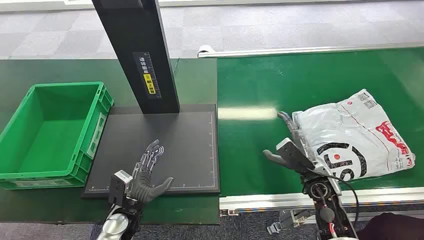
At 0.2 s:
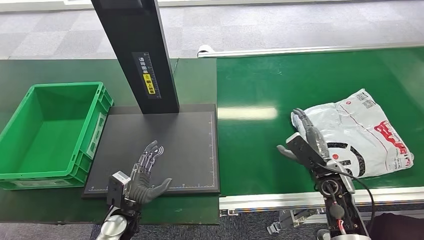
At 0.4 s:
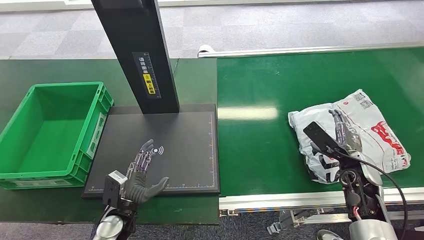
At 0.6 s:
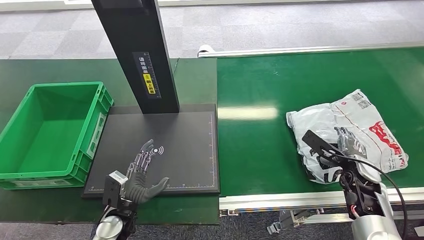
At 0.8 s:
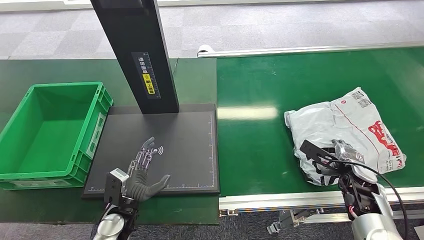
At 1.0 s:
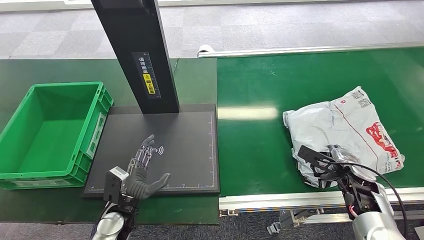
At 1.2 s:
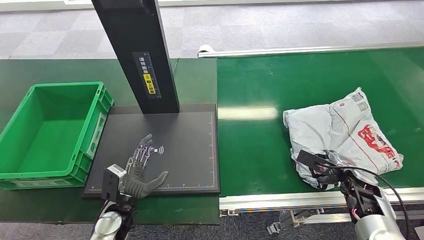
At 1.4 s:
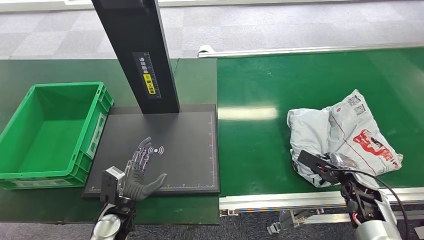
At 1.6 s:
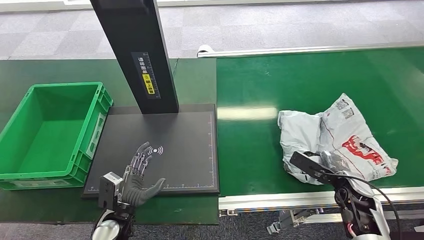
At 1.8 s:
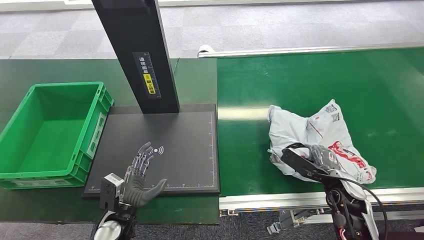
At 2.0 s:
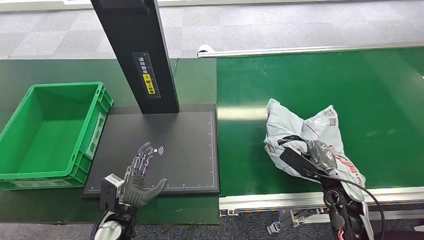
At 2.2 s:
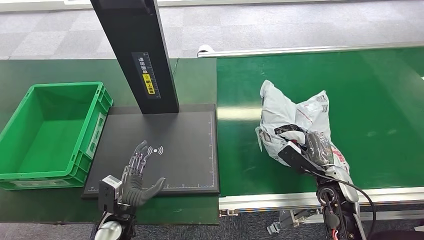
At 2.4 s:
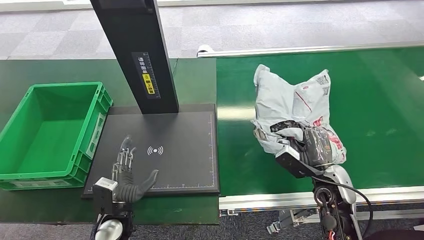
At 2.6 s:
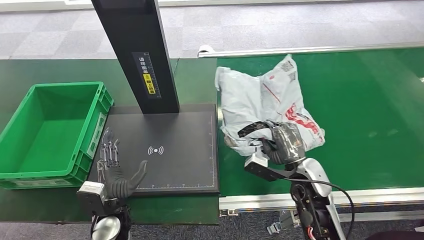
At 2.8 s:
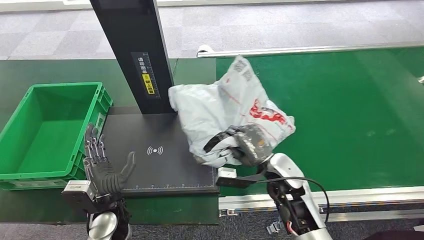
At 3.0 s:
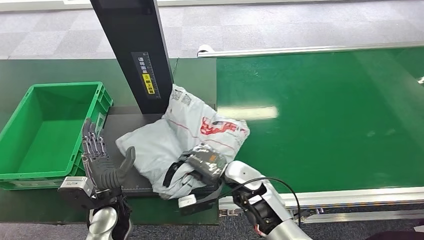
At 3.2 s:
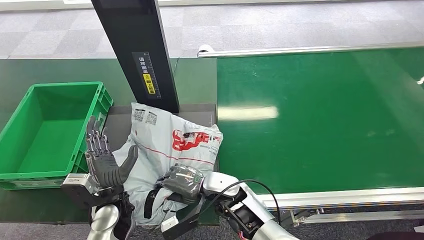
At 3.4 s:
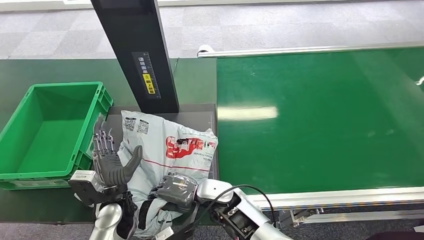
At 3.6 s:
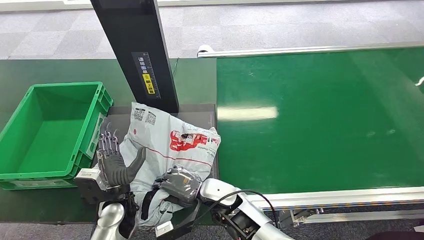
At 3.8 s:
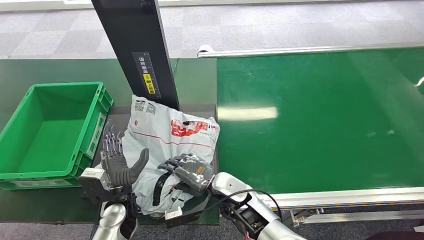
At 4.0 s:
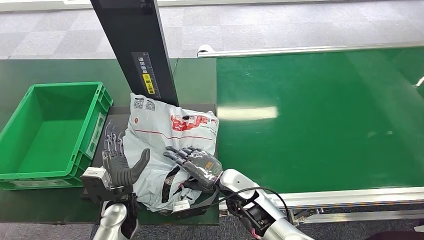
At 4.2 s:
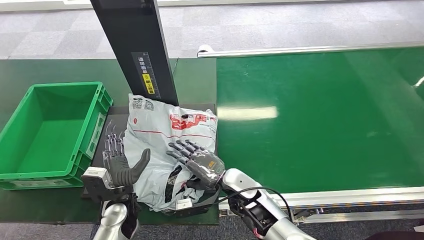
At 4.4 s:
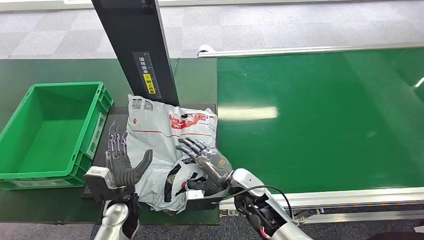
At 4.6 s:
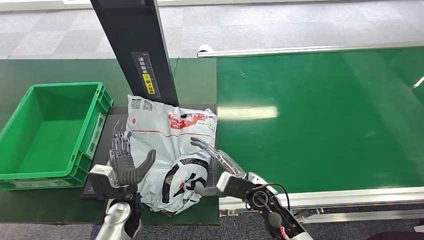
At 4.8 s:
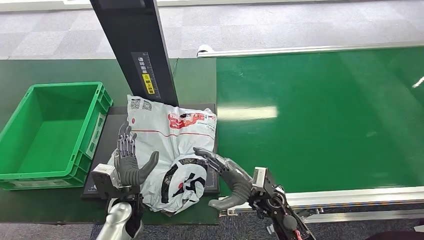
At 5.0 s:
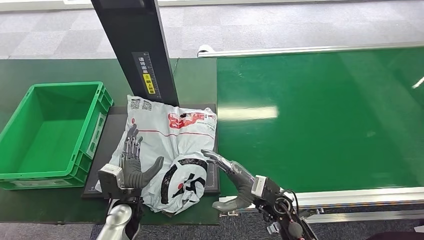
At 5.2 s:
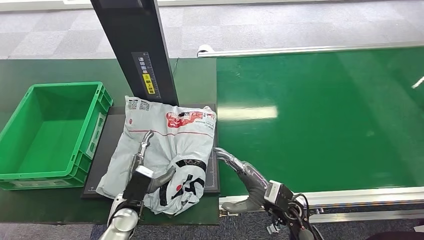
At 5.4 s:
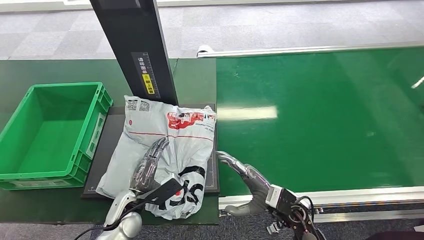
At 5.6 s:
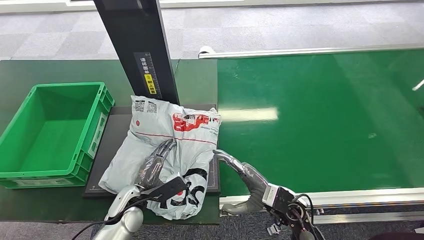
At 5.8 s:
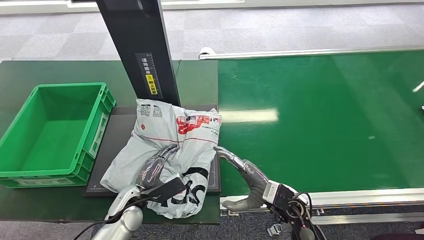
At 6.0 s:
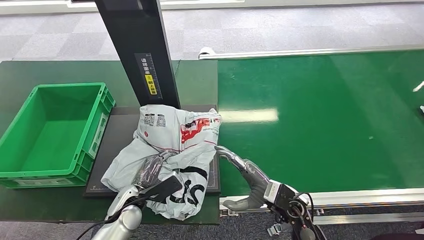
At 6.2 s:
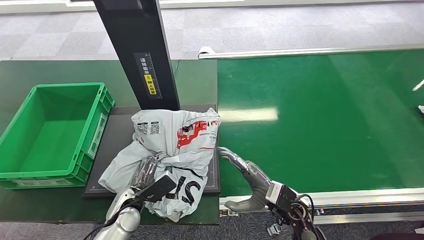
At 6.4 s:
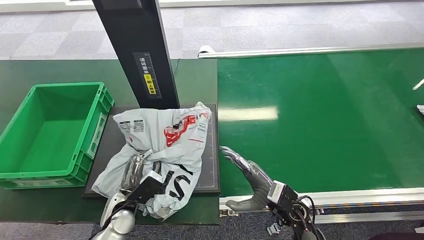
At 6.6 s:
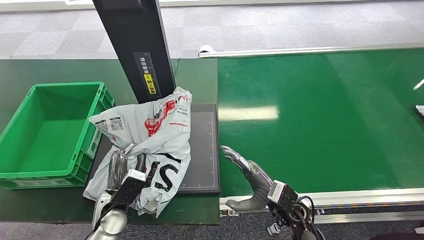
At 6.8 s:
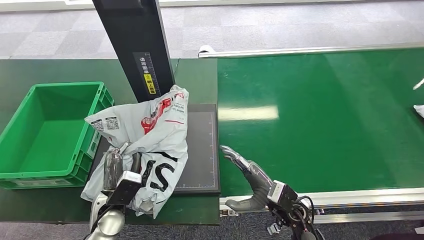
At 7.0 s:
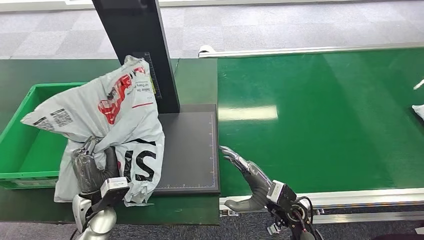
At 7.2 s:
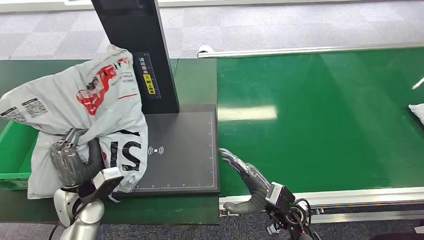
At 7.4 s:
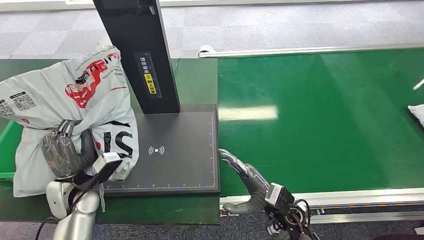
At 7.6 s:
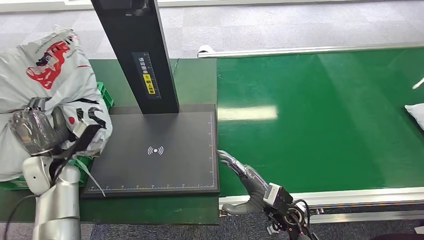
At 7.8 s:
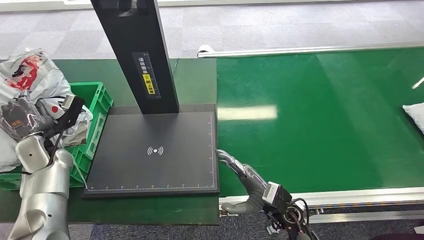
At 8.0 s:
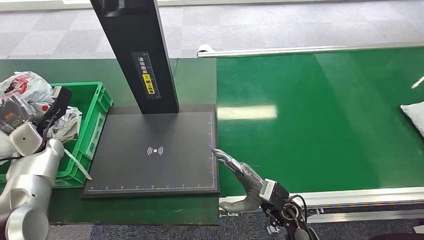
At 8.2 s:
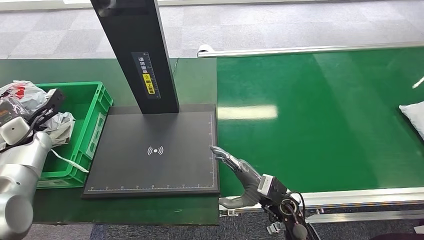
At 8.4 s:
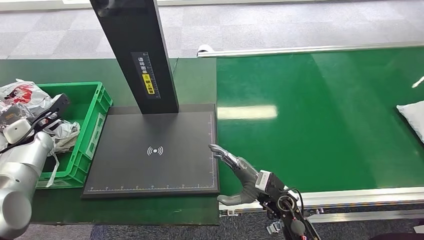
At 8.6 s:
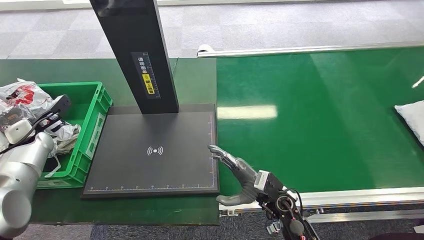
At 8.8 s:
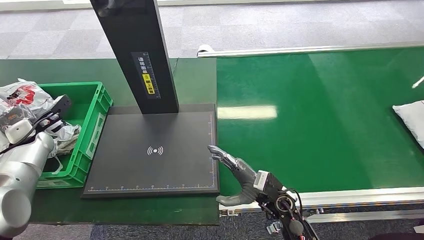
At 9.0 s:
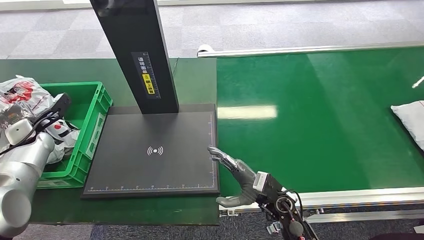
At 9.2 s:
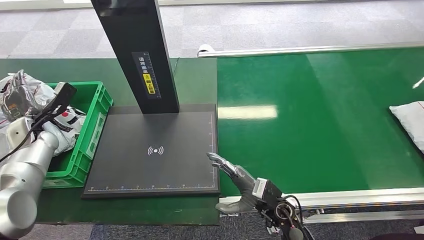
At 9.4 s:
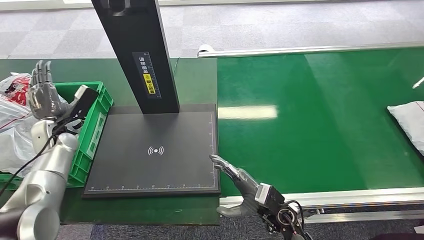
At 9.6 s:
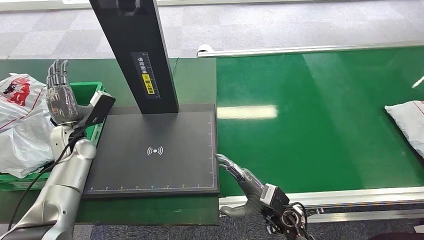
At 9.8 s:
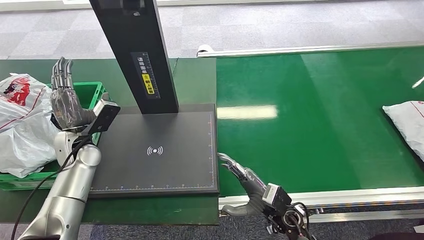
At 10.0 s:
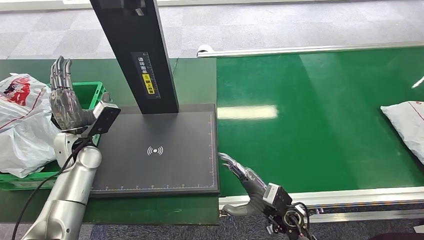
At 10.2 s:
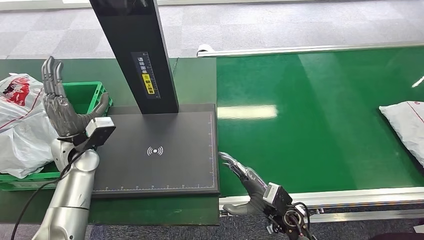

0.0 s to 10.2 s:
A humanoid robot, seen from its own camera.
Step, 0.0 to 2.6 s: Pick up the package from the conveyor belt.
Step, 2.8 to 5.0 s: Place the package onto the inbound machine.
Step, 5.4 to 7.4 s: Pick up the package from the inbound machine.
Step, 7.8 to 10.2 s: Place the package into the parcel locker.
8.8 to 10.2 s: The left hand shifts approximately 15 cm to the right.

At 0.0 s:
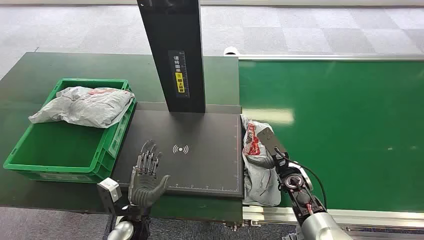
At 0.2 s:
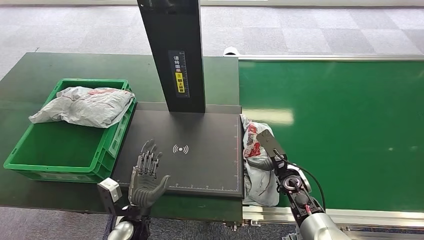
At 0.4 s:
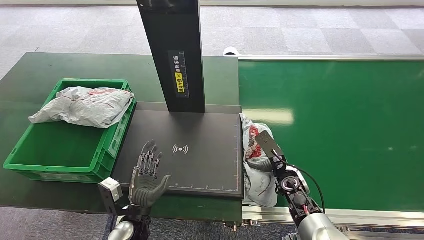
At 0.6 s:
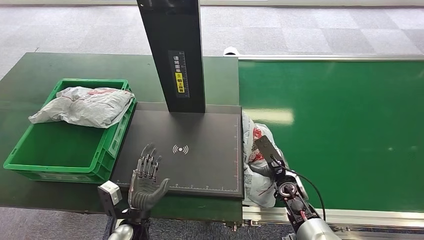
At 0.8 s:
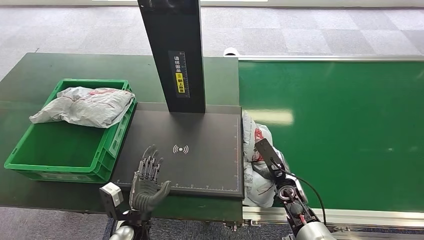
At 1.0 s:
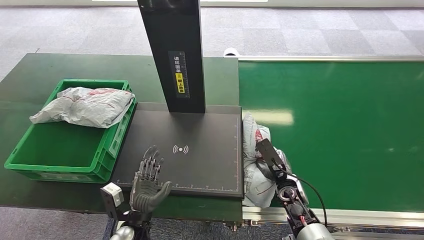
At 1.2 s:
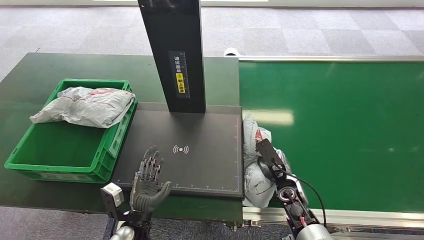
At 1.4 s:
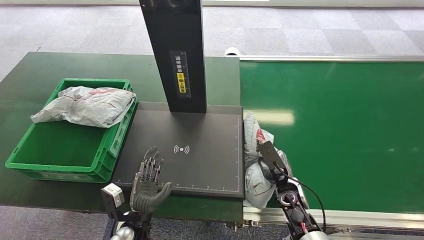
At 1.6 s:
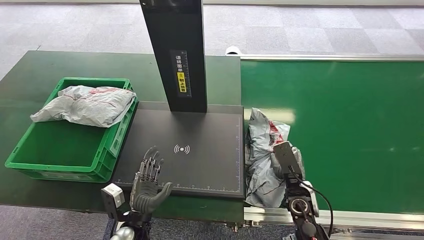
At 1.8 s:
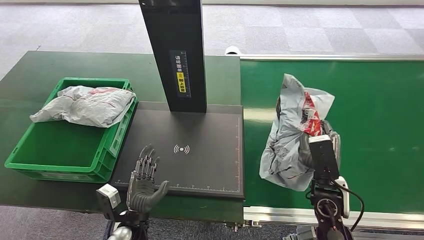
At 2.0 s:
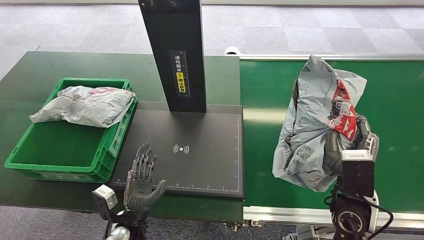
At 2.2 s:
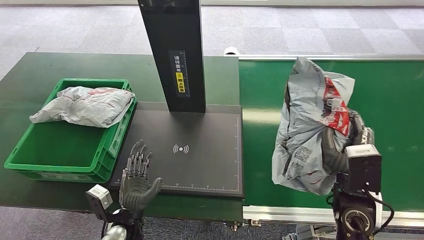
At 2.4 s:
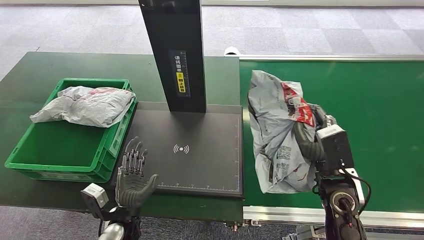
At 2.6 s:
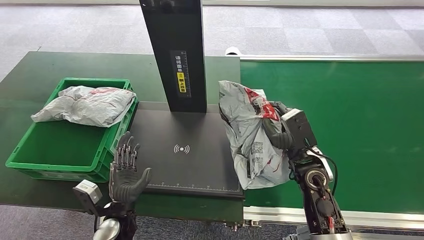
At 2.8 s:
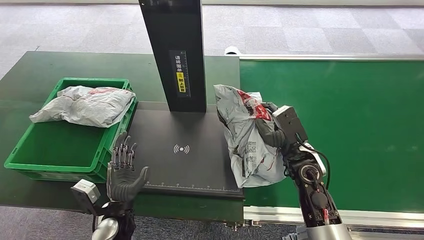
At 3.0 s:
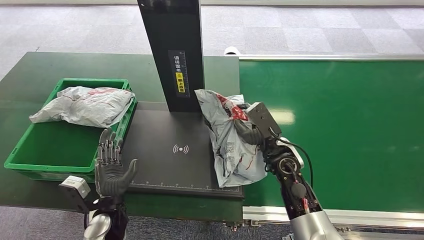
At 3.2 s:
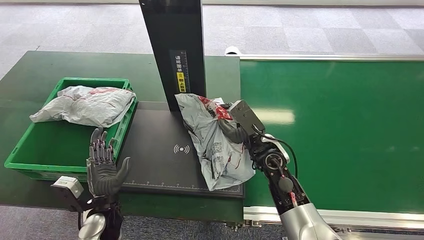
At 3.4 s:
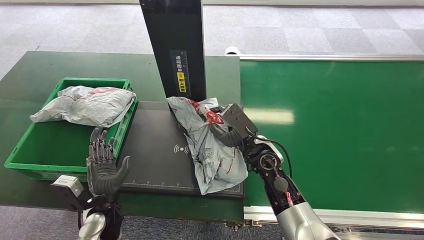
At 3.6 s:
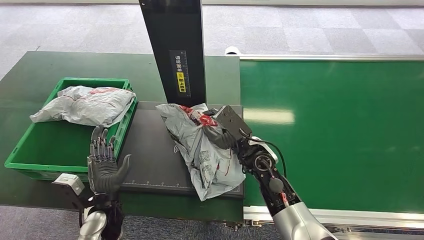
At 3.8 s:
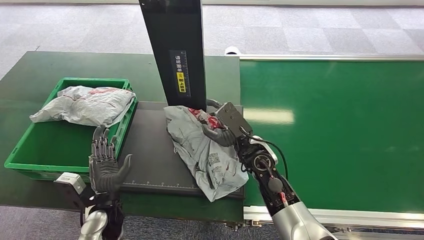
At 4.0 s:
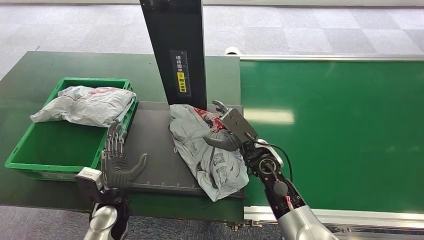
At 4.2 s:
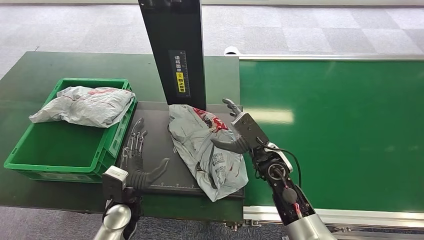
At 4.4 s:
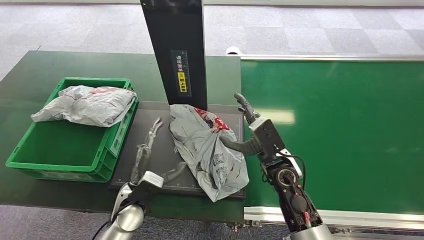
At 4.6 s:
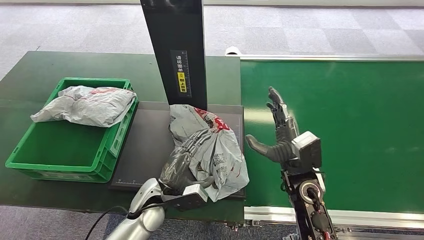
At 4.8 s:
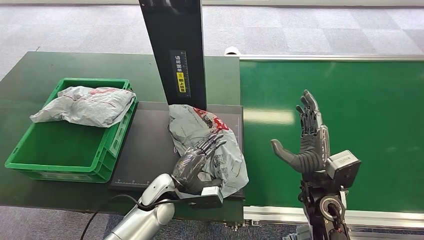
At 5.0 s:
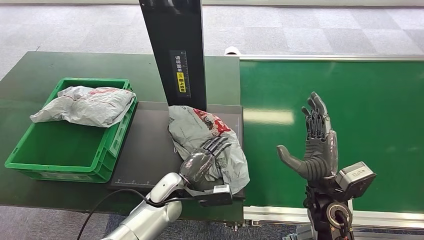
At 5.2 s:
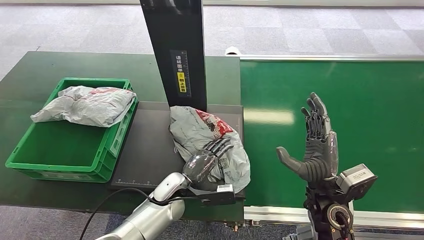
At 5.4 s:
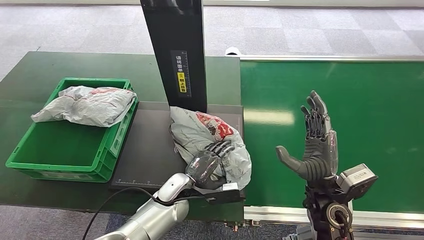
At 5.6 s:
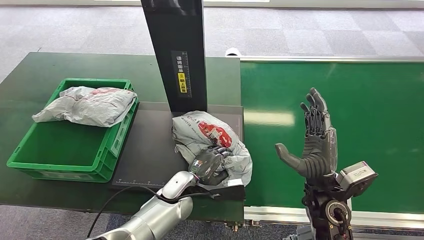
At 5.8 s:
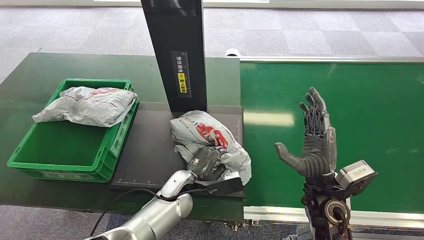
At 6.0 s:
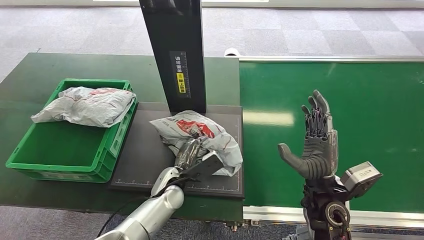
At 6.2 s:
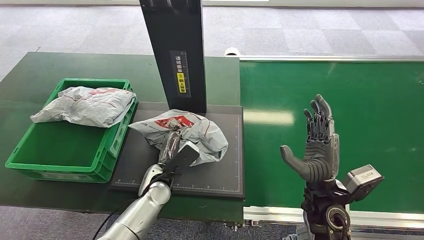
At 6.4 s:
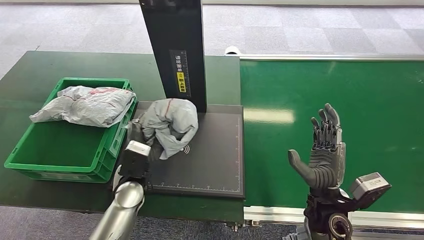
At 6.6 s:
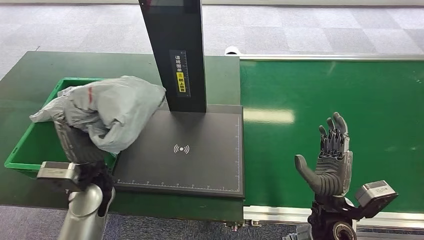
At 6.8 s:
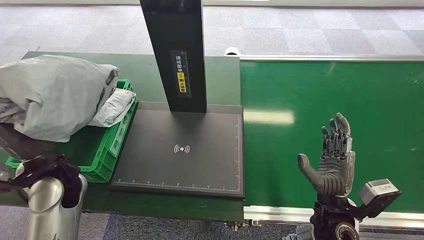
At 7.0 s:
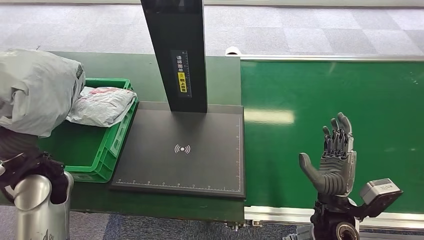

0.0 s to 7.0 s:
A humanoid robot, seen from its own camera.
Step, 0.0 to 1.8 s: Pick up the package from the conveyor belt.
Step, 2.0 to 4.2 s: Place the package onto the inbound machine.
Step, 4.4 to 7.0 s: Pick up the package from the inbound machine.
1.4 to 2.8 s: The left hand ends up some 5 cm from where it was; the right hand is displaced upward and forward by some 15 cm.
2.8 to 4.2 s: The right hand heads to the left, covering about 5 cm.
